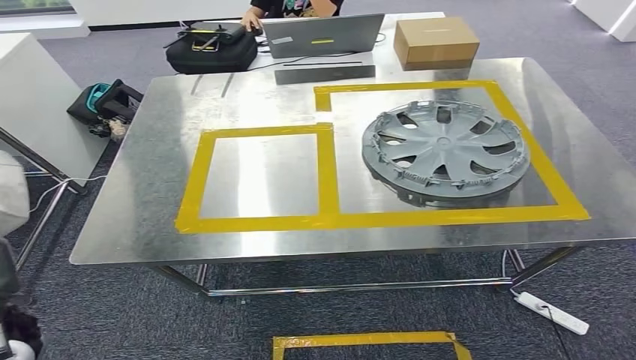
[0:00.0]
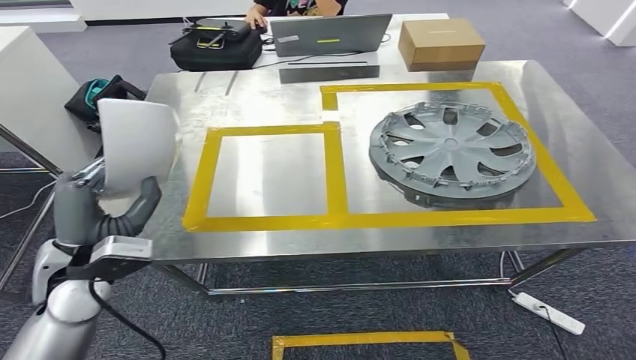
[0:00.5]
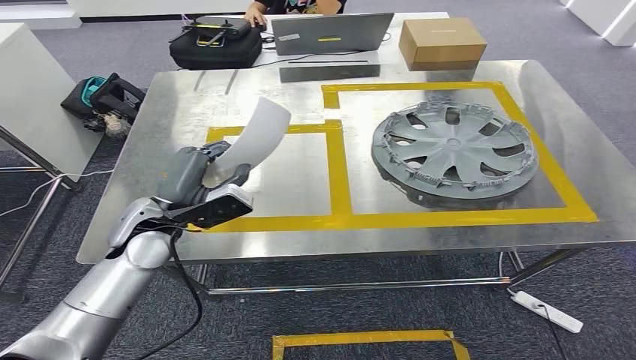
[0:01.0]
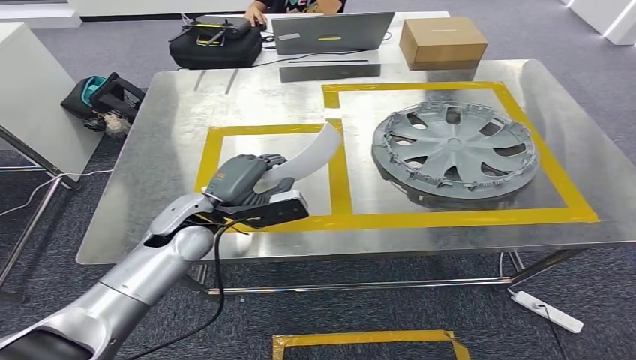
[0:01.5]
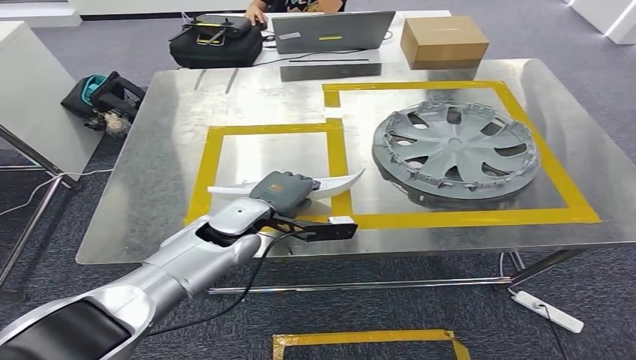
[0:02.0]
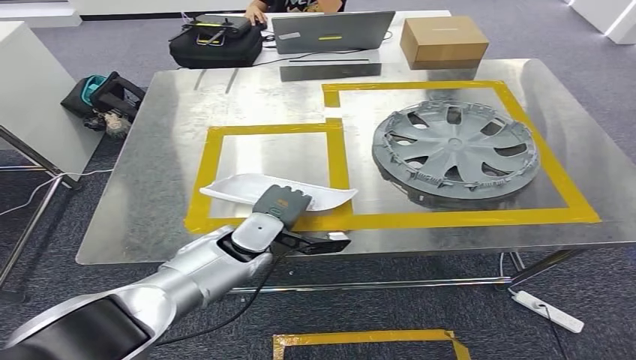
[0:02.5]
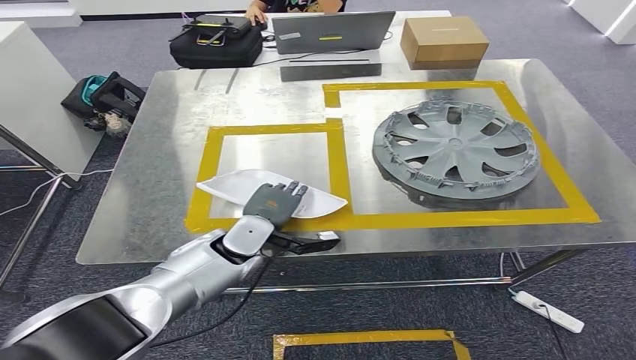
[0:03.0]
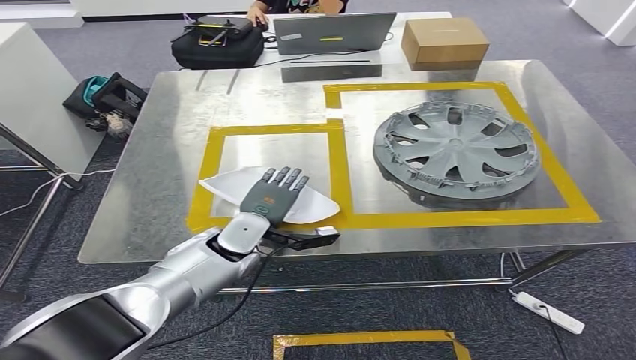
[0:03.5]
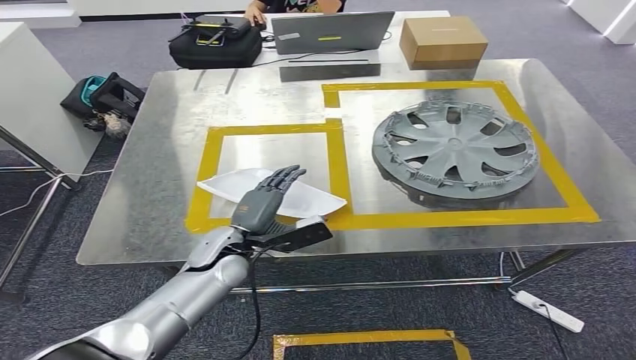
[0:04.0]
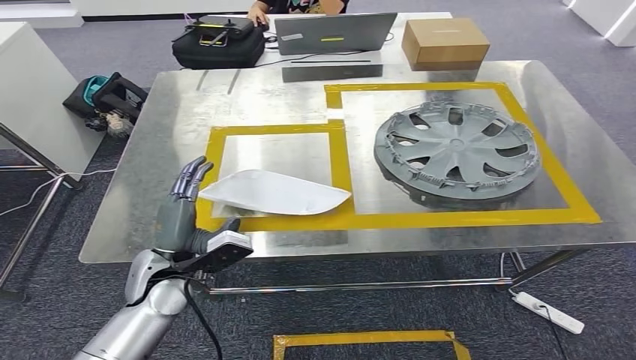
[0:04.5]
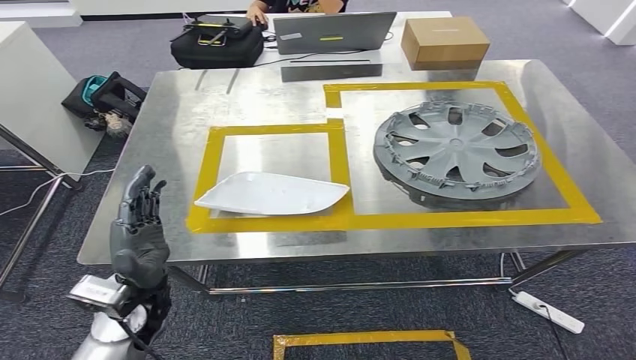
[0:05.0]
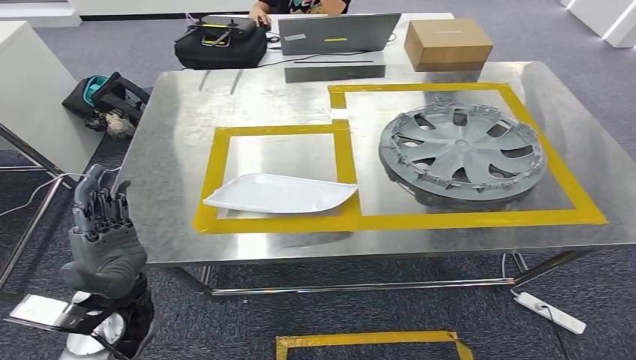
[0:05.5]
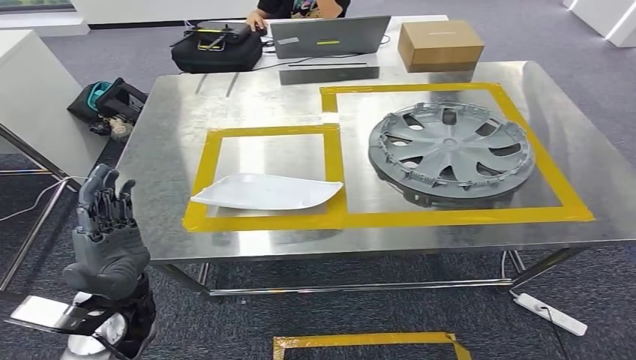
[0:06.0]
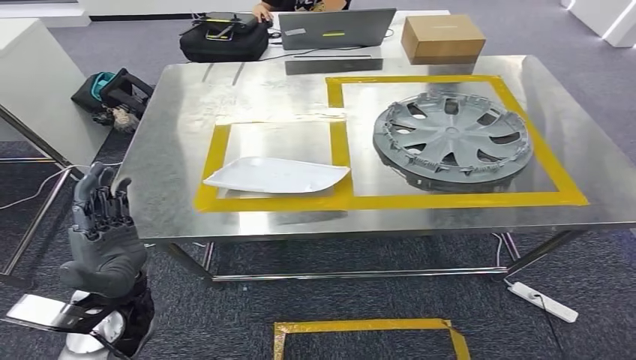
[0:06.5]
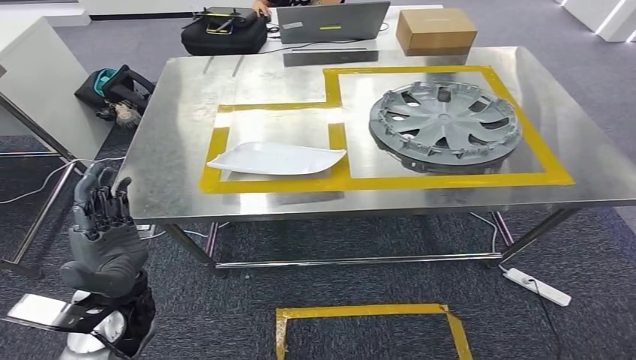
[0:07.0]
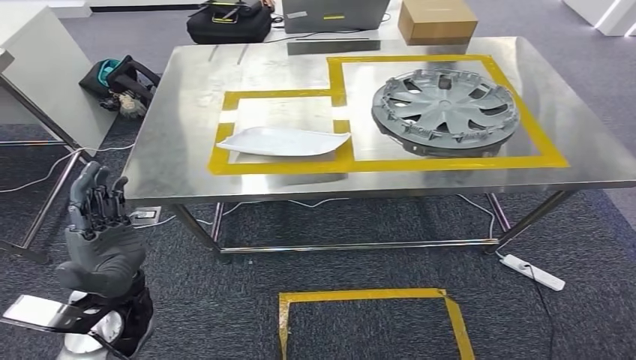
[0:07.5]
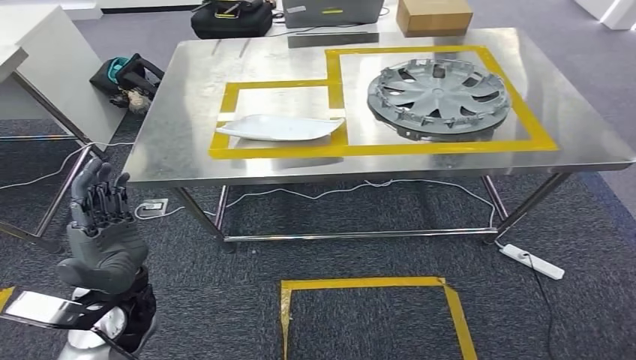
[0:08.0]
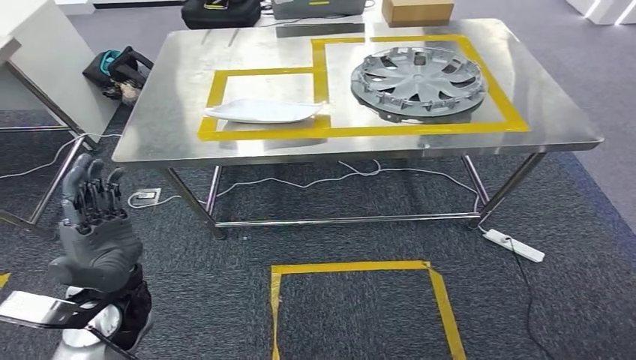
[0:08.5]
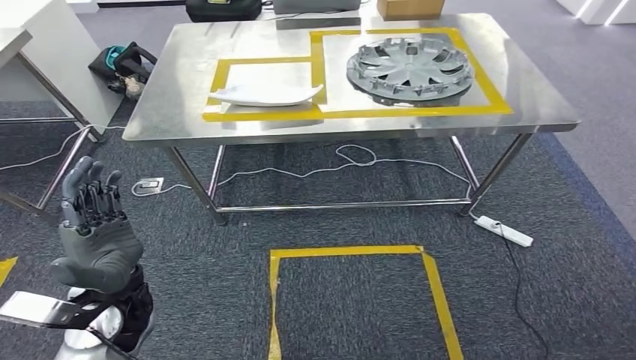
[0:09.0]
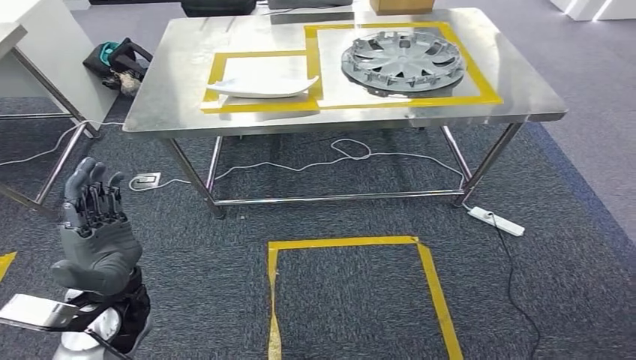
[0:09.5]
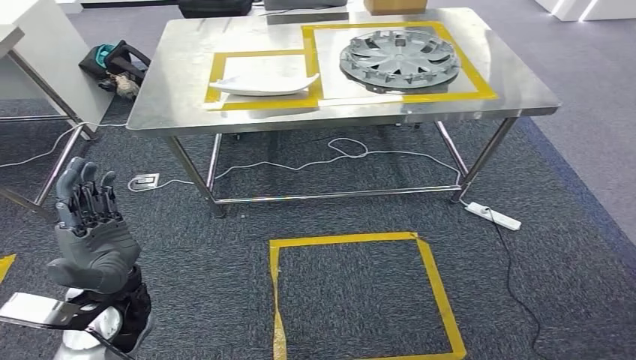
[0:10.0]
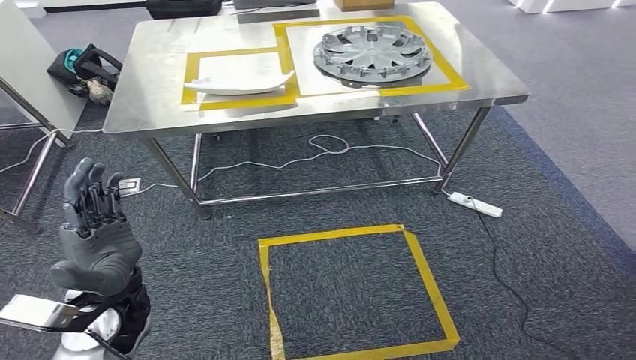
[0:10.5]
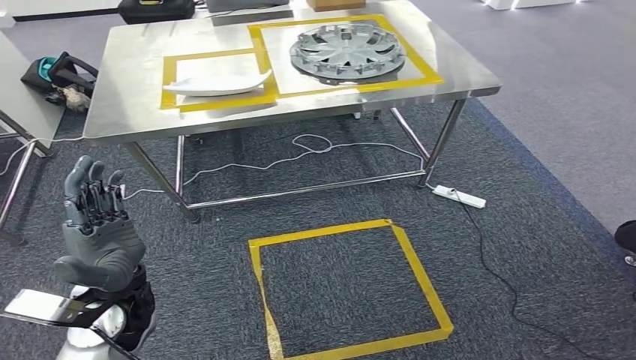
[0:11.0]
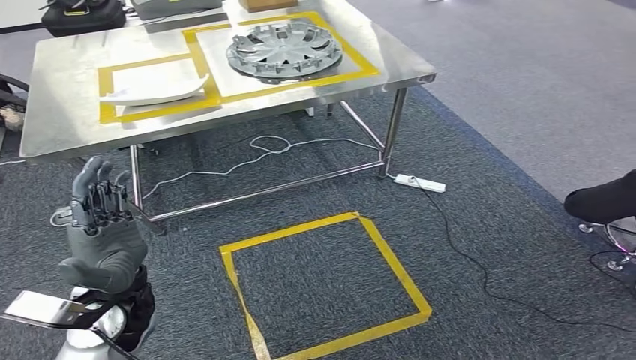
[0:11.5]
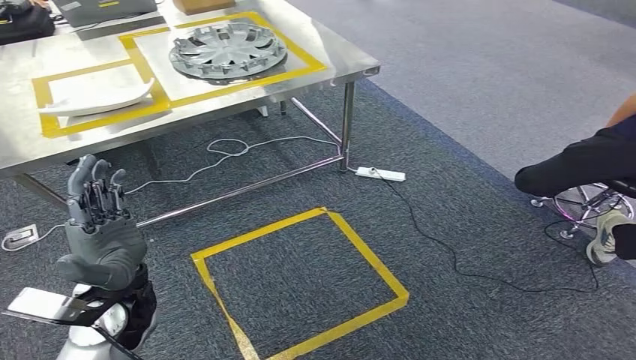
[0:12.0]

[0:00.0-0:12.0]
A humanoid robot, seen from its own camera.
Step, 0:00.0 to 0:07.5: Insert the small parts into the corresponding holes on the workbench.
0:02.0 to 0:04.0: The left hand goes roughly 5 cm downward.

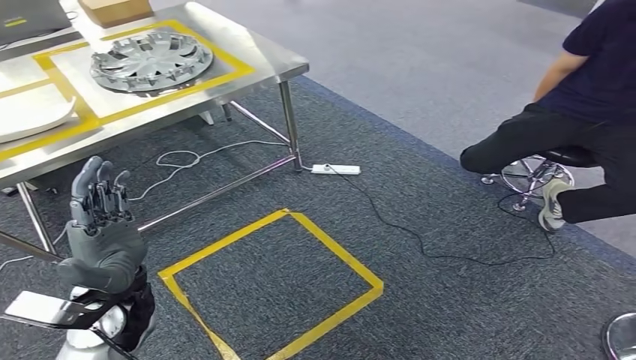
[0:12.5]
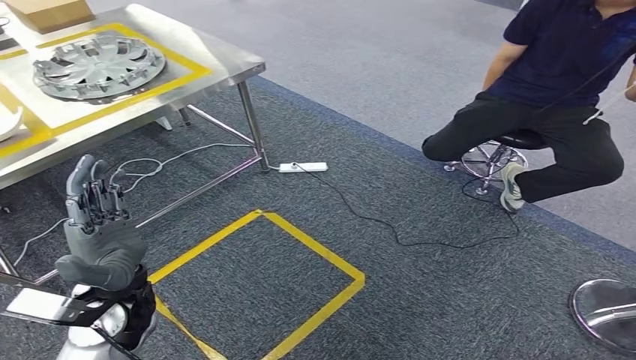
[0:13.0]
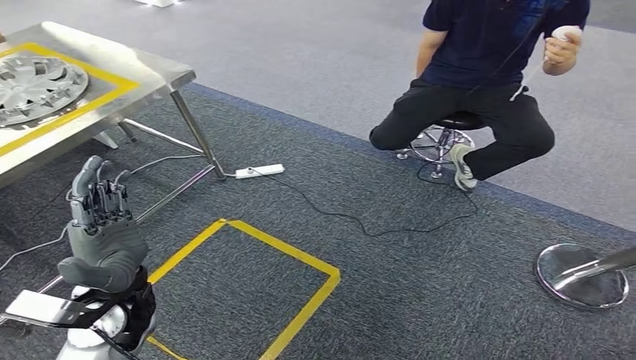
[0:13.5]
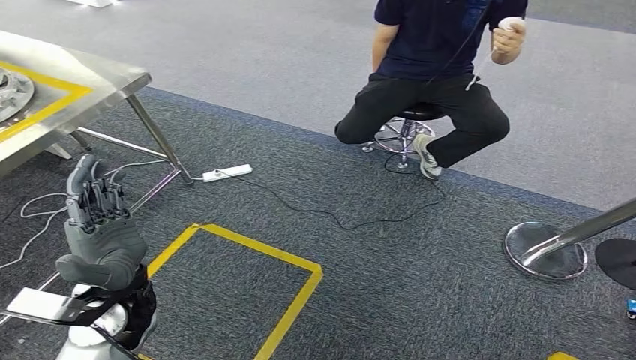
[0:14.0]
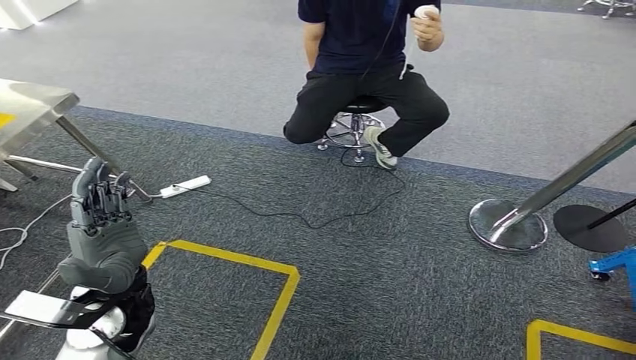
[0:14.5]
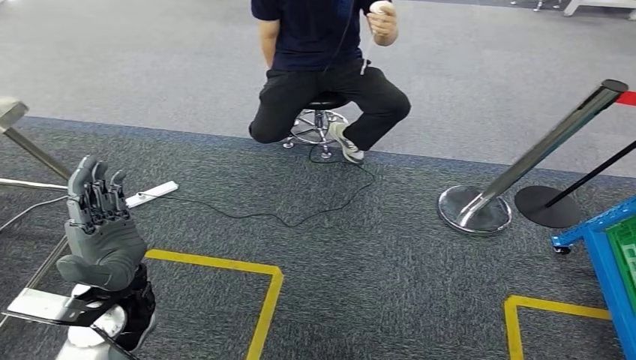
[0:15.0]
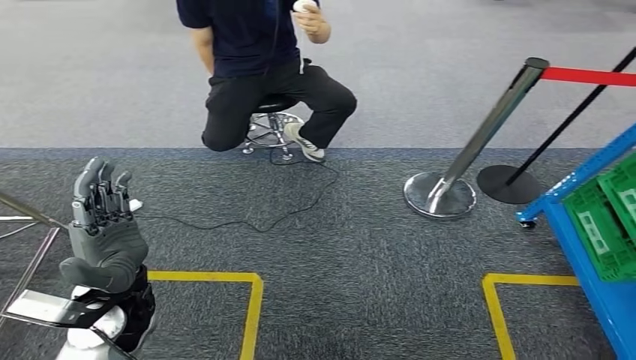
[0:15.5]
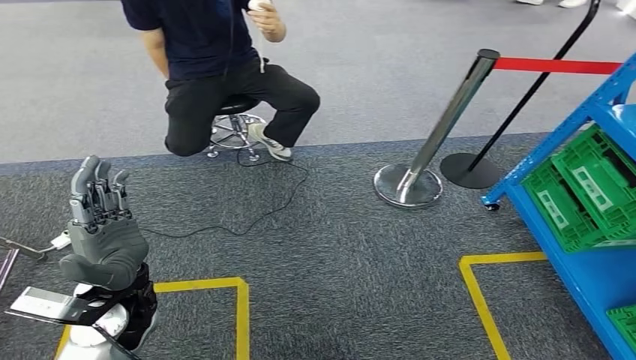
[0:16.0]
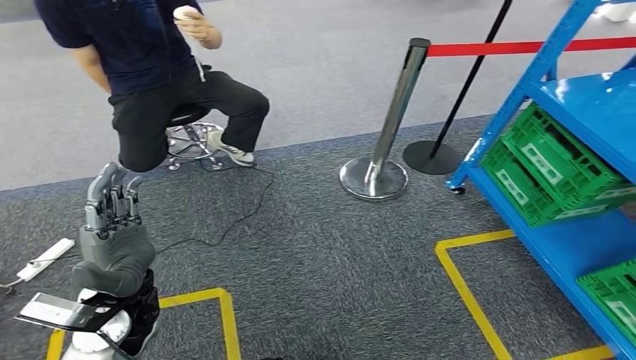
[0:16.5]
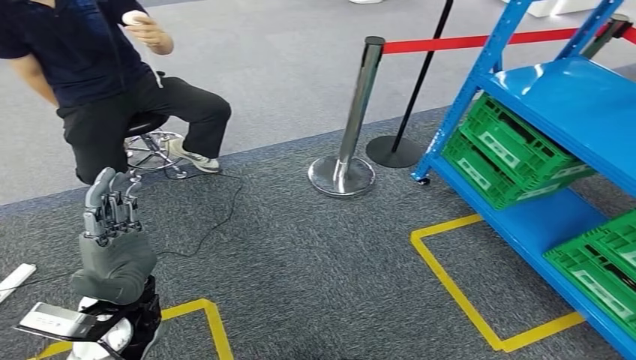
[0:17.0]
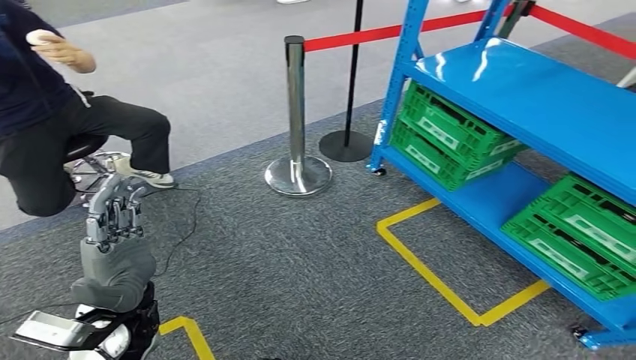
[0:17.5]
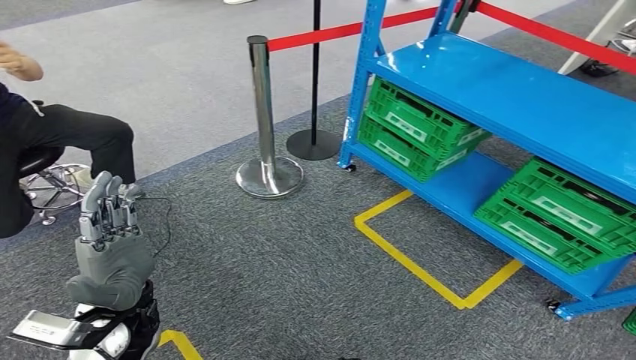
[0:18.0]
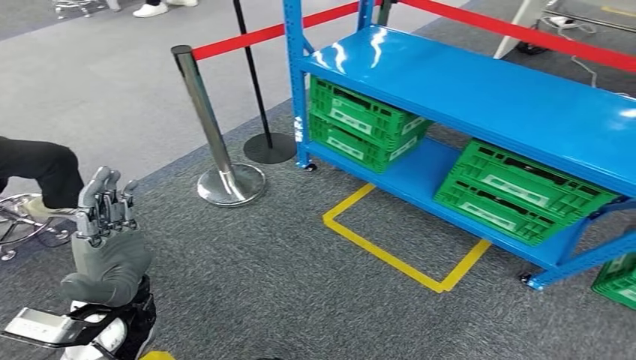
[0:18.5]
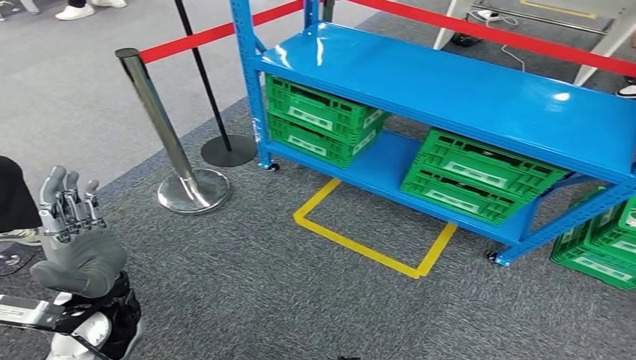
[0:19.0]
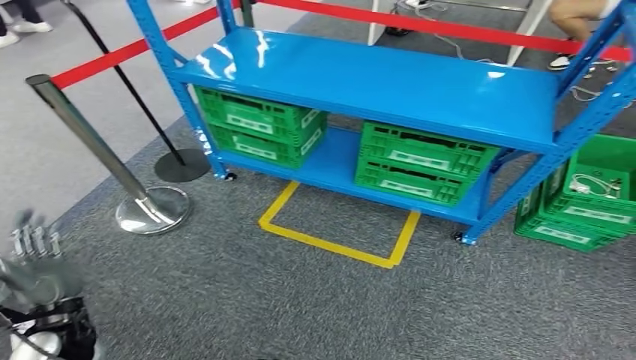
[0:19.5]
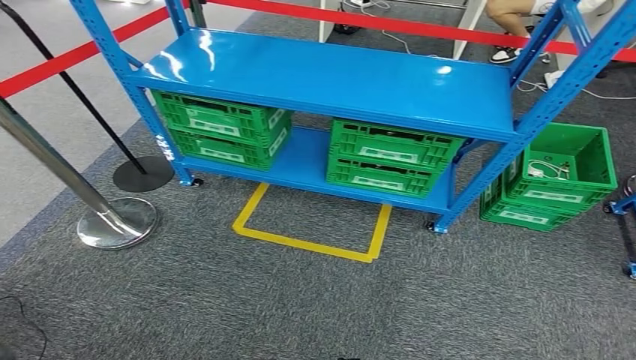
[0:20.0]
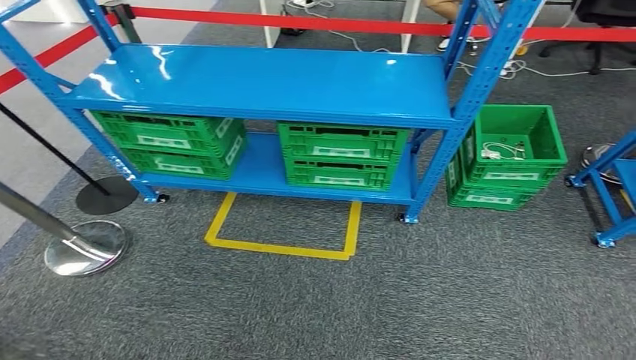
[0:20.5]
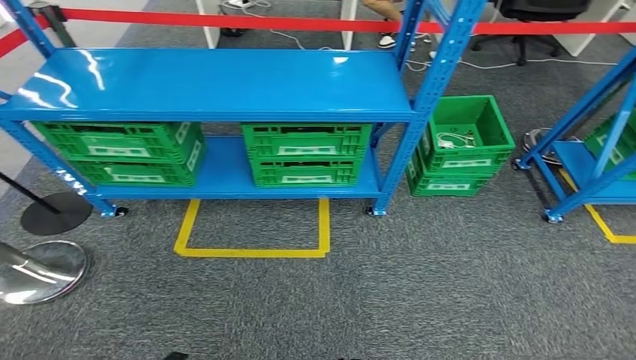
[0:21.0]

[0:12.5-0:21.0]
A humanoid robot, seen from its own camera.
Step, 0:12.5 to 0:21.0: Move to the initial position of the workbench.
